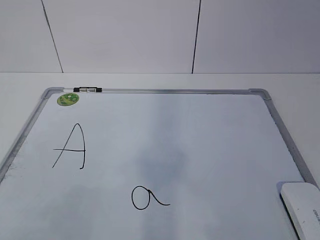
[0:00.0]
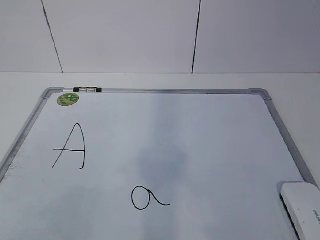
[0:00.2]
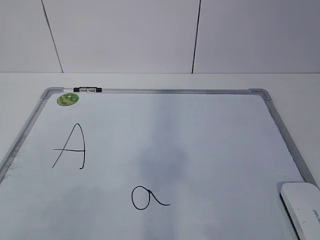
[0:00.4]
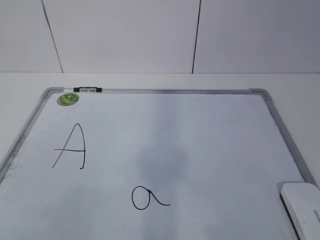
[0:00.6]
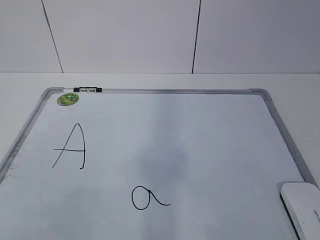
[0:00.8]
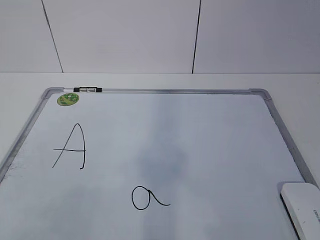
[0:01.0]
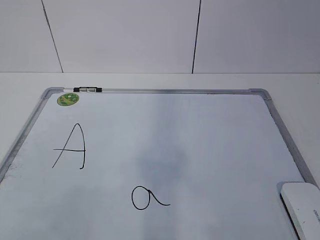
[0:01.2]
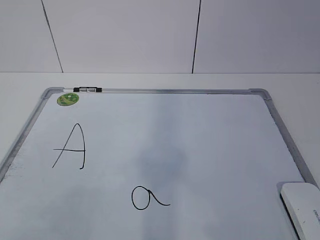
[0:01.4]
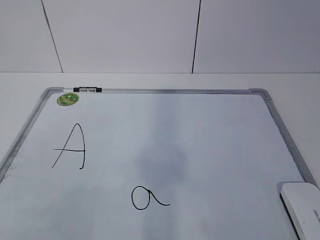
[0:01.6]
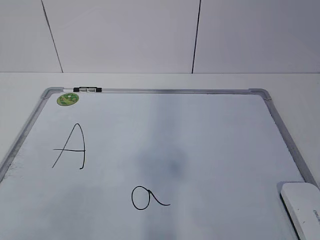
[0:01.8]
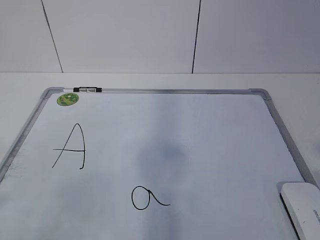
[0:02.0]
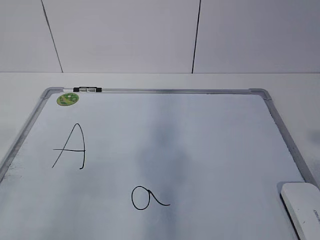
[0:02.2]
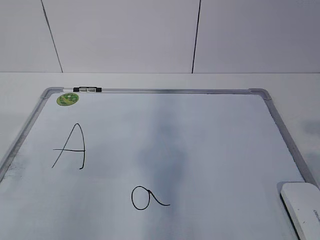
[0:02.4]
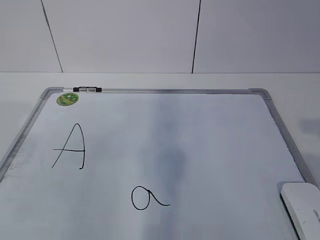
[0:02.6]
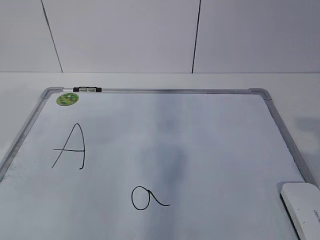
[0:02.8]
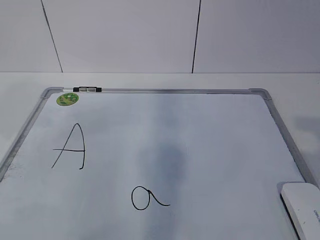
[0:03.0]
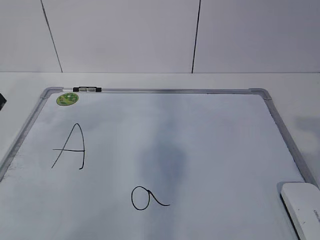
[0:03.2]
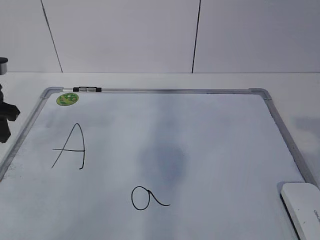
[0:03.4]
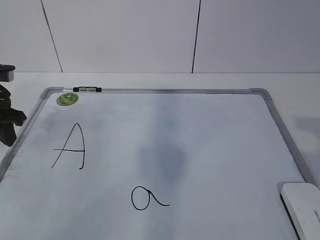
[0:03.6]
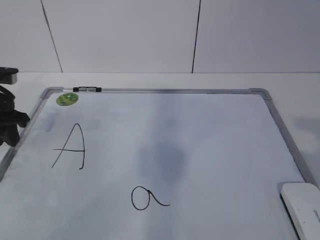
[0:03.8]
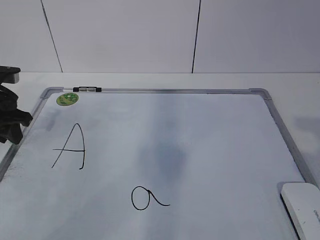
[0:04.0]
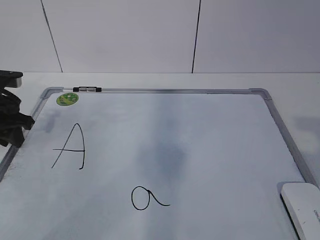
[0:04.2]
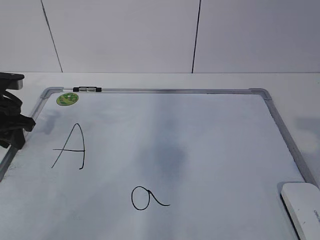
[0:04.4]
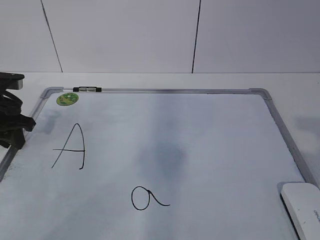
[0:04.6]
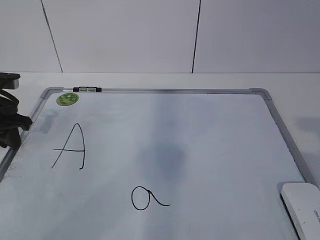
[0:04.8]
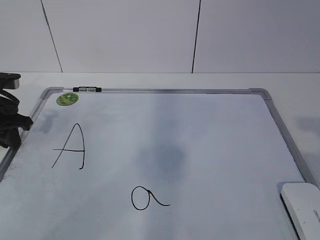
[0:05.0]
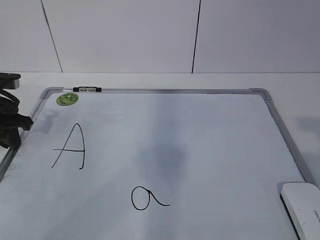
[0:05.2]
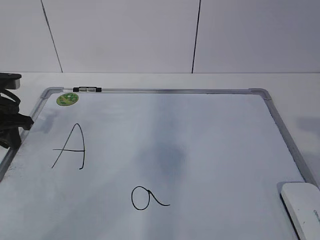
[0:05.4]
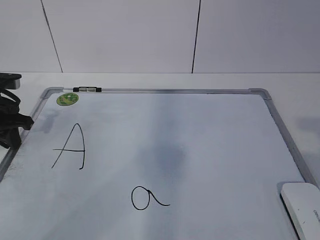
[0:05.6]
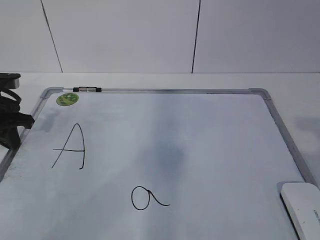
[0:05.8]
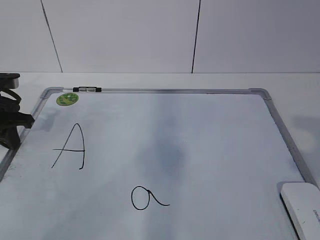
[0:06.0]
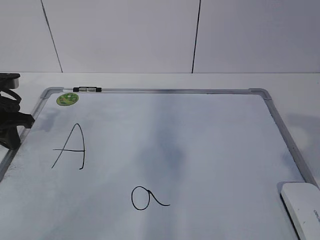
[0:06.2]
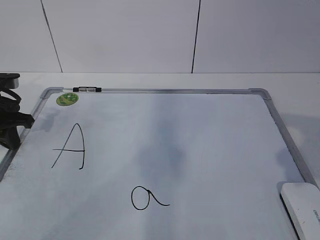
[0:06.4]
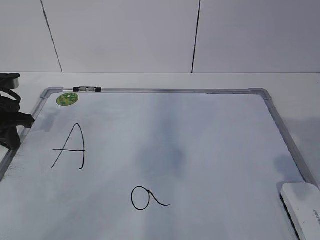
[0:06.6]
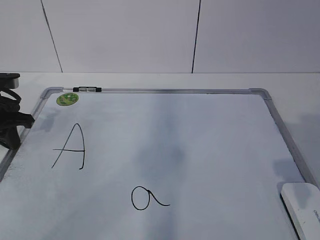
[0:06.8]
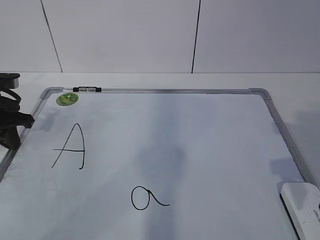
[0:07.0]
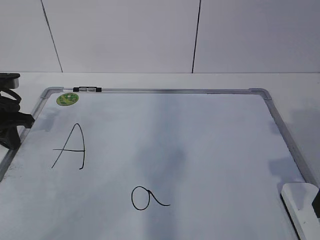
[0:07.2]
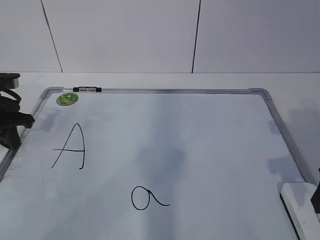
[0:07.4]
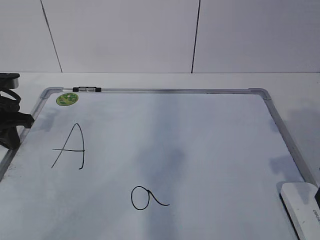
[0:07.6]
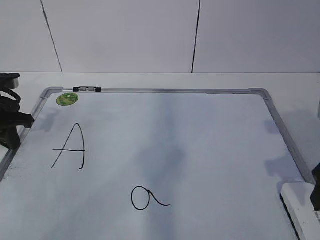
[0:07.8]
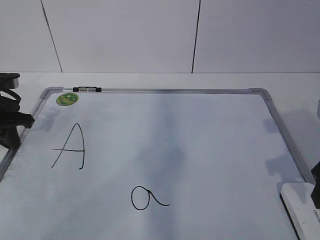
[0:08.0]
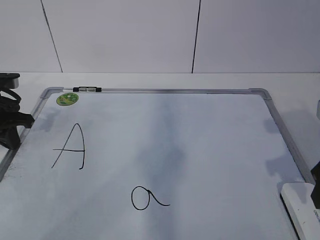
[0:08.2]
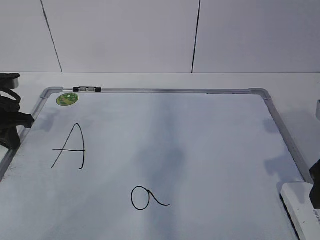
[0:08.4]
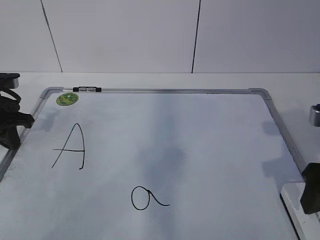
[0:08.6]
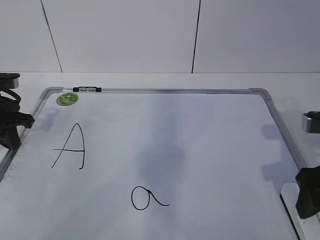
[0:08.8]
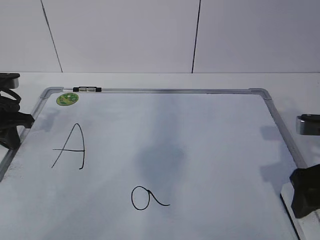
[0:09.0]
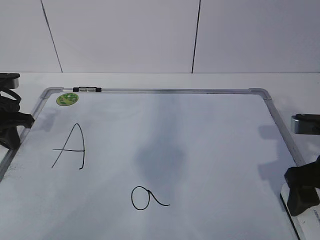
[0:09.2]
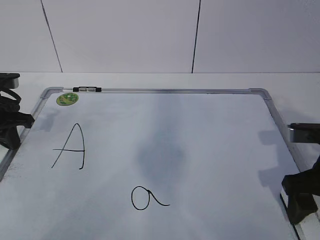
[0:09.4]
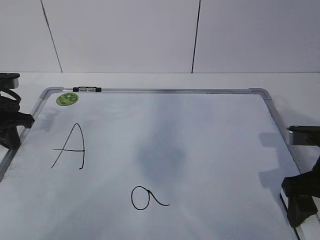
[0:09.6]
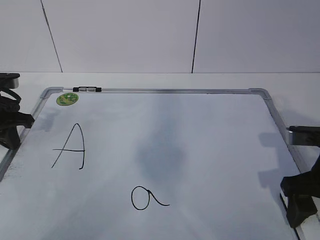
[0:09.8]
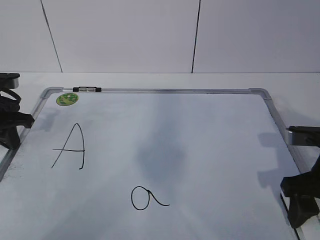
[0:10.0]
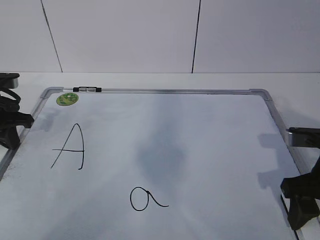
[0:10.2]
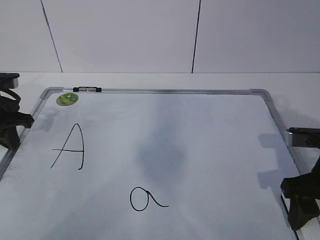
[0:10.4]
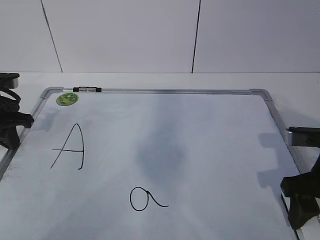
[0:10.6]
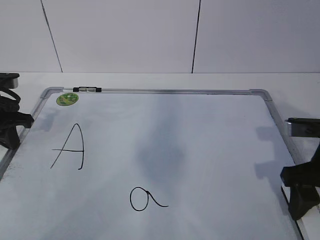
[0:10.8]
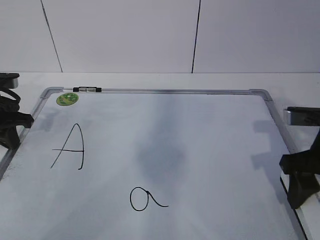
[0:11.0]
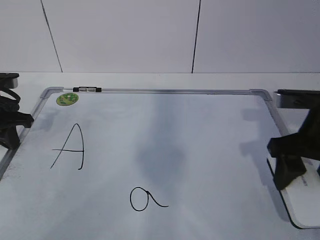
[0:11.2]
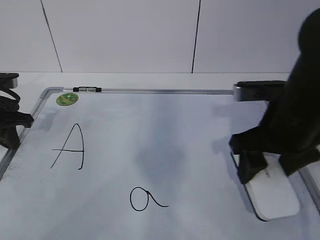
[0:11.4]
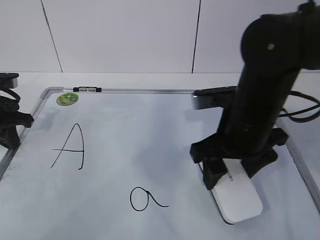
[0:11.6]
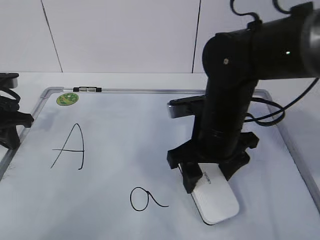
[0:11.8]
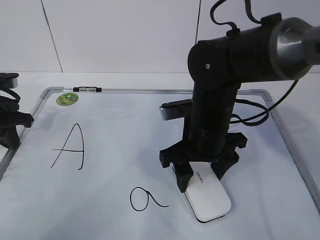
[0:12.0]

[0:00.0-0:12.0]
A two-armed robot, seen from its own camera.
Task of the whole recording: pick up the eraser on the blackboard and erase the letter "a".
Step, 0:00.0 to 0:04.8: Hold the drawing board steady with your left hand.
0:03.0 to 0:04.4: The left gripper is displaced downward and forward by about 15 cm.
0:04.4 to 0:06.0: The left gripper closes its fingers.
0:06.0 to 0:07.6: The right gripper travels forward and downward by some 15 cm.
0:07.6 to 0:09.0: The grippers make only small movements.
0:09.0 to 0:10.4: The grippers stay close to where they were, moving slightly.
0:10.4 to 0:12.0: The right gripper shifts approximately 20 cm to the left and forward.

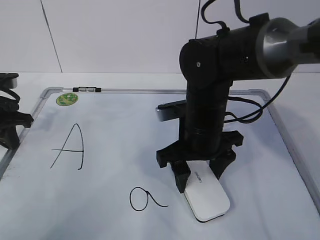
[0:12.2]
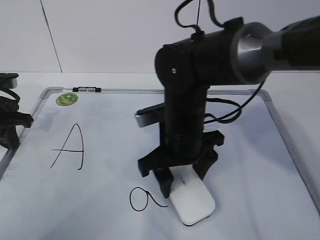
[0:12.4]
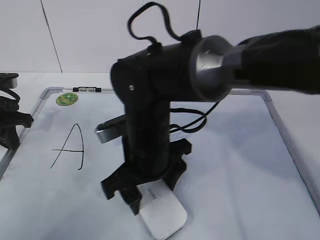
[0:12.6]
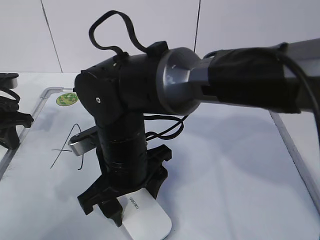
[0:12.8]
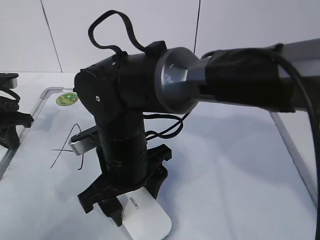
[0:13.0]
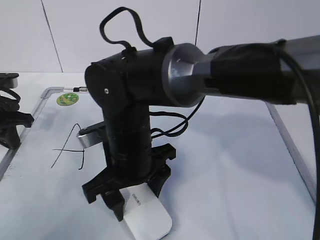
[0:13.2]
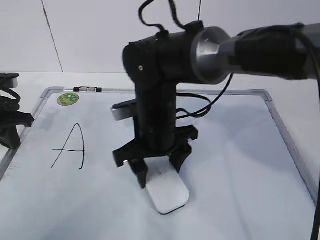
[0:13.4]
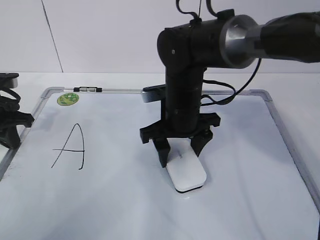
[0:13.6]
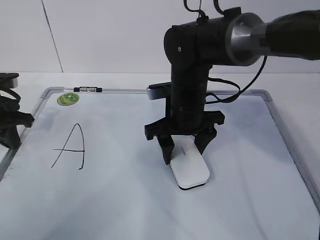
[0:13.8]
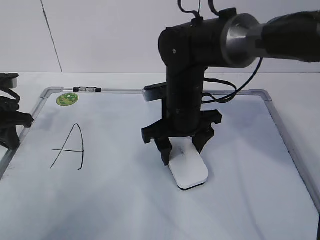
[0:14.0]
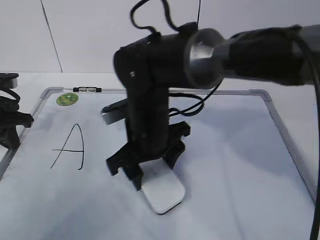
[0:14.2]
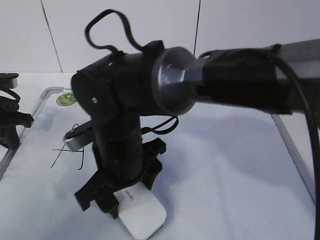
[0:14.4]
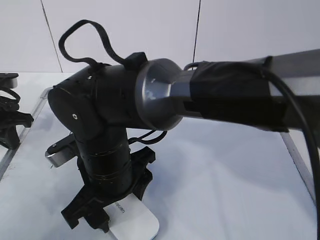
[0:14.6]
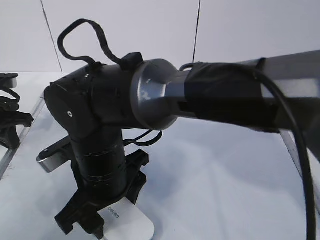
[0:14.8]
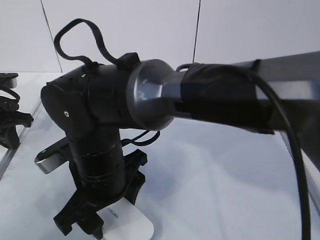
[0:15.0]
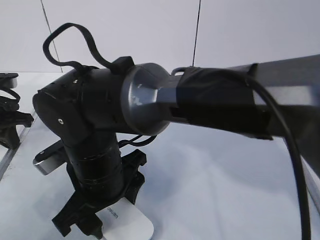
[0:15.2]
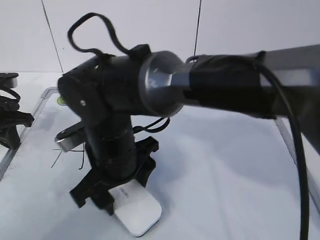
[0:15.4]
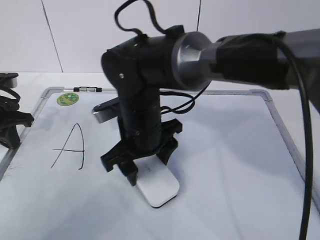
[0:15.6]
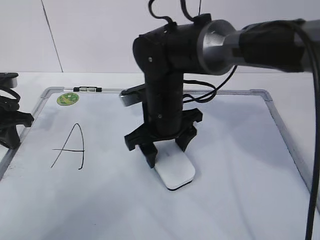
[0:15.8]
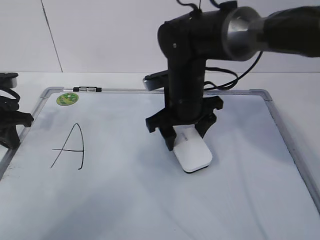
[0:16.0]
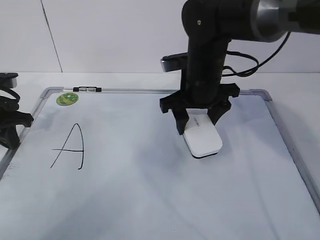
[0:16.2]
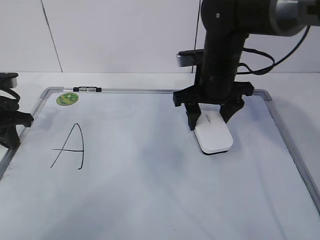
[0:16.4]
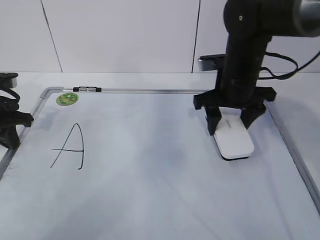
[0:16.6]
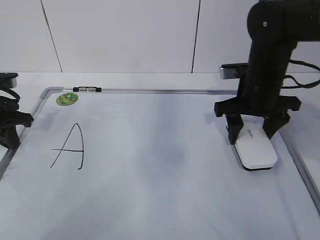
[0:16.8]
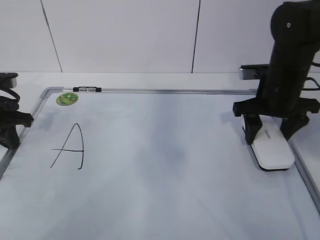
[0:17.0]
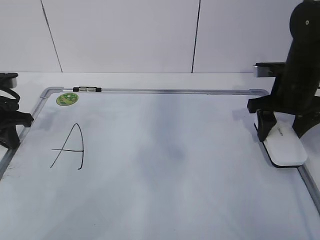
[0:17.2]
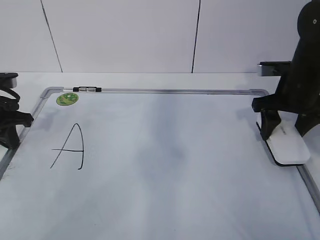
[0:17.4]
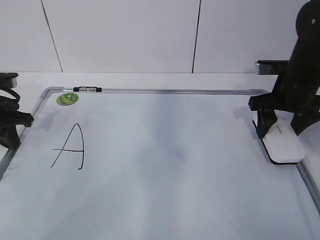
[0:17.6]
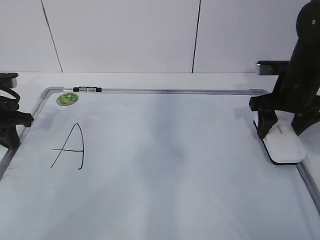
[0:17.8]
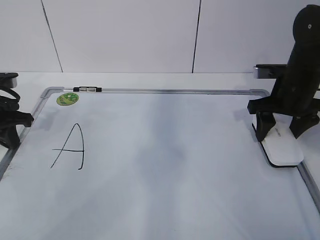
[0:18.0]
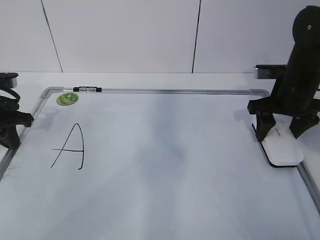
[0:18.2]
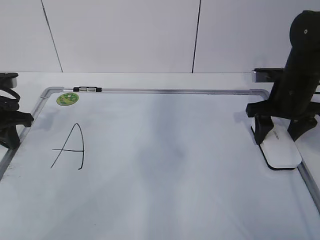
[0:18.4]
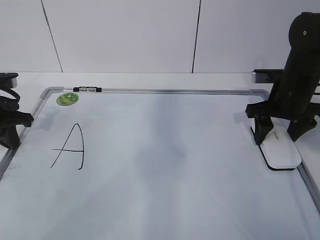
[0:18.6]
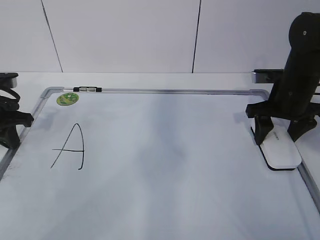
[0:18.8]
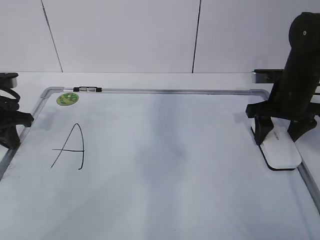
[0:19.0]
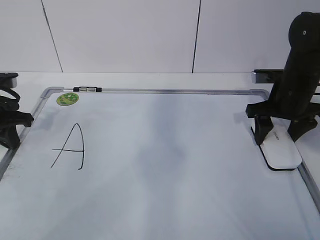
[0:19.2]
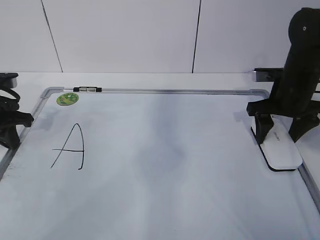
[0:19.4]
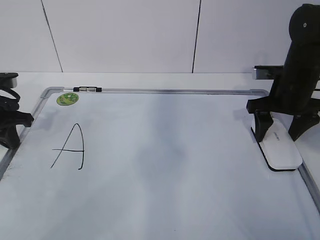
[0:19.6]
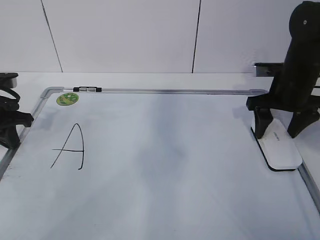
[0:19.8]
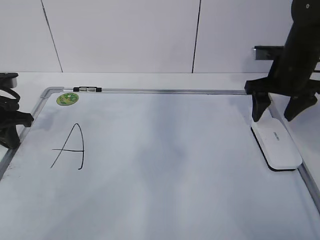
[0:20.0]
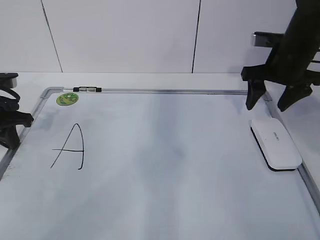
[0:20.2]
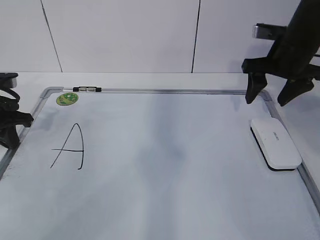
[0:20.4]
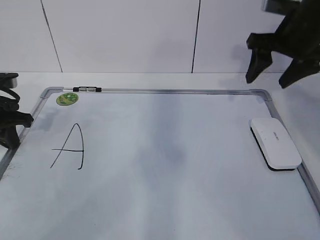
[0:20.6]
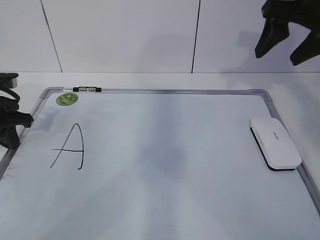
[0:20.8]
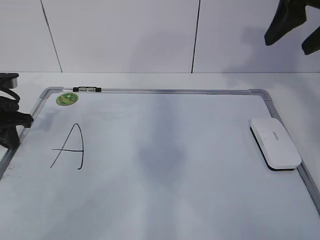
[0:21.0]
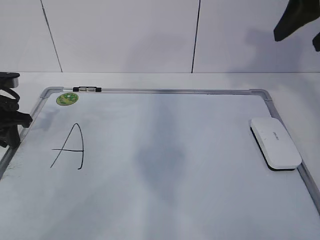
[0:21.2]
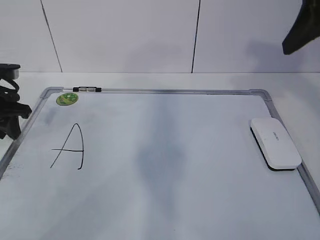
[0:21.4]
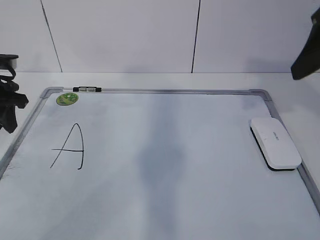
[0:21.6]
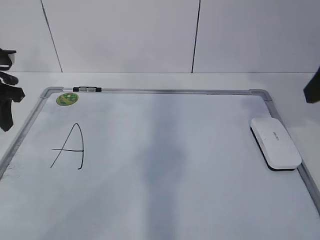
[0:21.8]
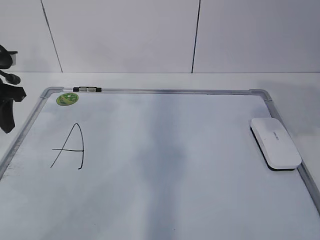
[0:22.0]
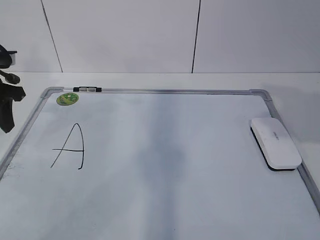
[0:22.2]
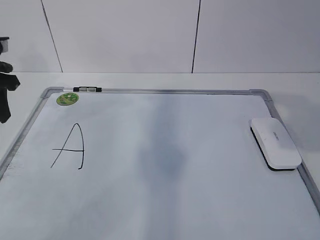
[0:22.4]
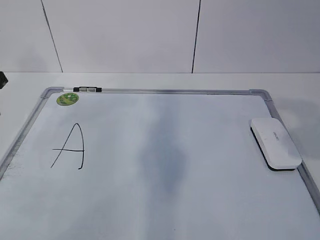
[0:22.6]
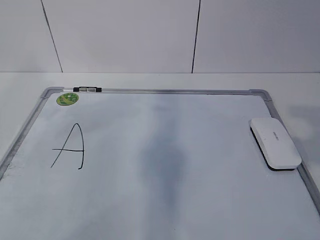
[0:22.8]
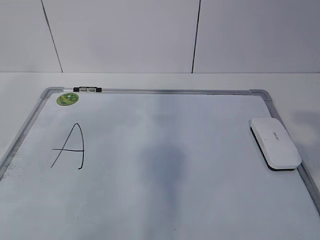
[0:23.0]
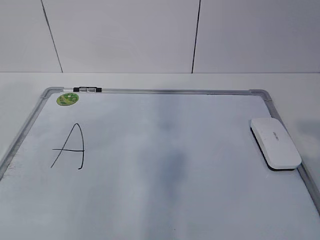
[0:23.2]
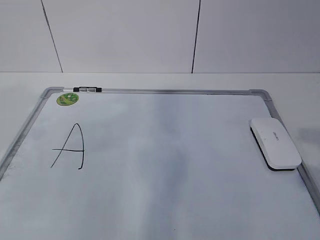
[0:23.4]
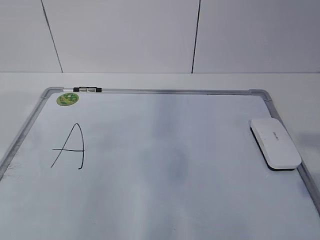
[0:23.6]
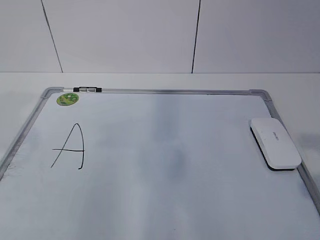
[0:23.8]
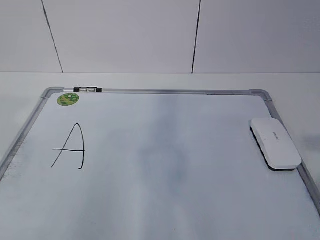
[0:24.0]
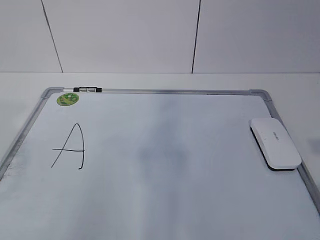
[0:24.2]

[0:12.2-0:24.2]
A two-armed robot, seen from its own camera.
Task of the whole recording: pick up the eraser on the blackboard and erase the letter "a".
Step, 0:13.4 to 0:16.0: Put down the eraser with your right hand.
0:12.2 to 0:13.8: The right gripper travels forward by approximately 5 cm, and goes to the left and returns, approximately 10 cm each way.
0:13.8 to 0:15.2: The right gripper shifts some 20 cm to the left and backward.
0:15.2 to 0:16.6: The right gripper moves to the right and forward, some 25 cm.
0:16.6 to 0:18.2: The right gripper is displaced to the right by some 10 cm.
0:18.2 to 0:19.8: Both grippers stay about where they are.
0:19.8 to 0:21.2: The right gripper heads upward and backward, covering approximately 20 cm.
0:21.2 to 0:22.6: The right gripper is displaced backward by about 20 cm, while the left gripper goes about 10 cm upward, and opens up.
